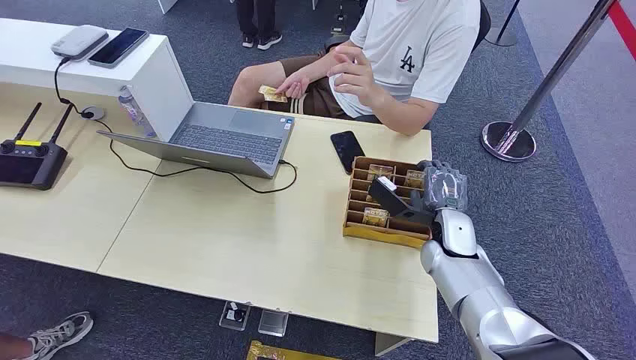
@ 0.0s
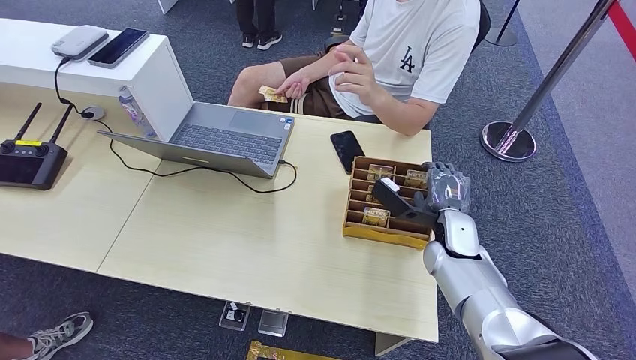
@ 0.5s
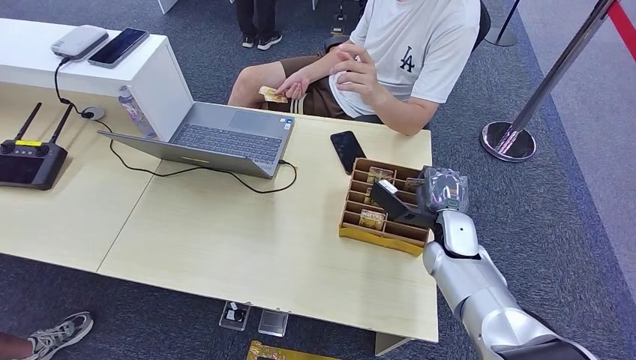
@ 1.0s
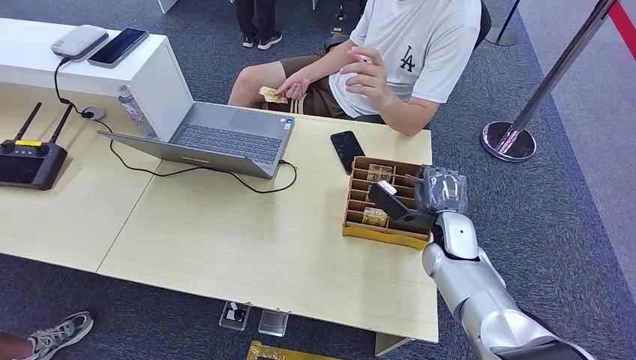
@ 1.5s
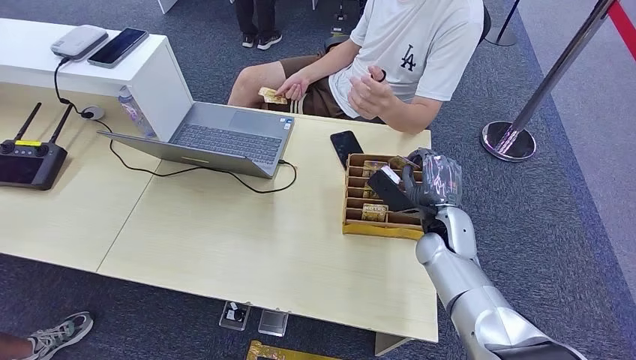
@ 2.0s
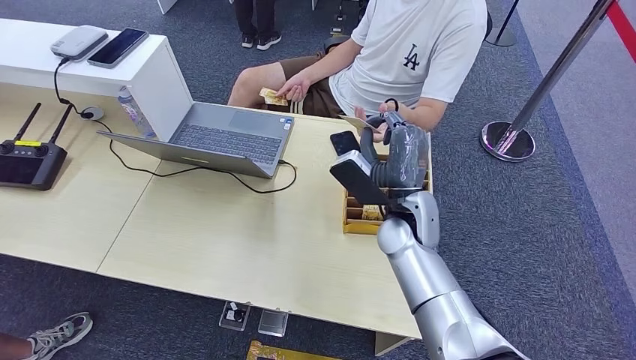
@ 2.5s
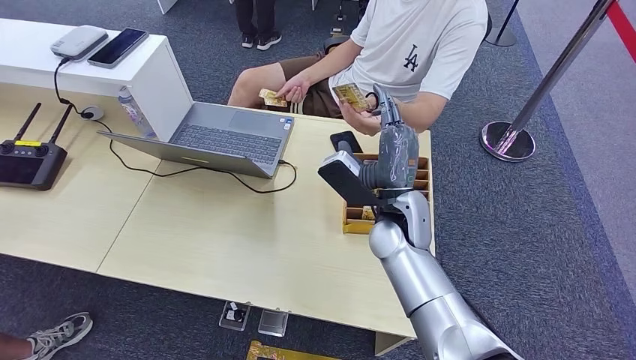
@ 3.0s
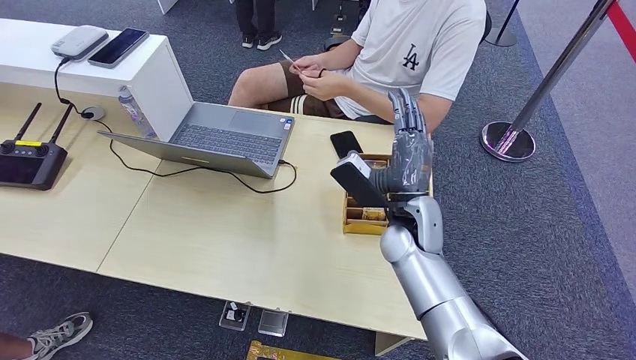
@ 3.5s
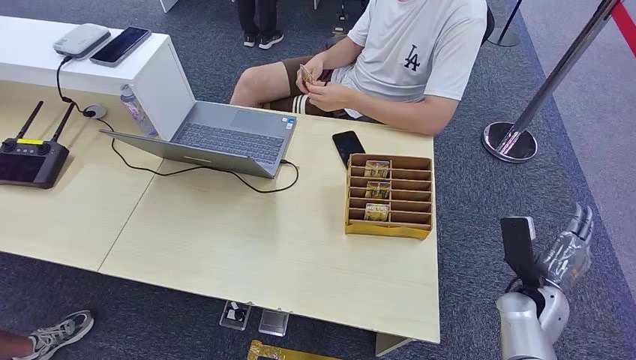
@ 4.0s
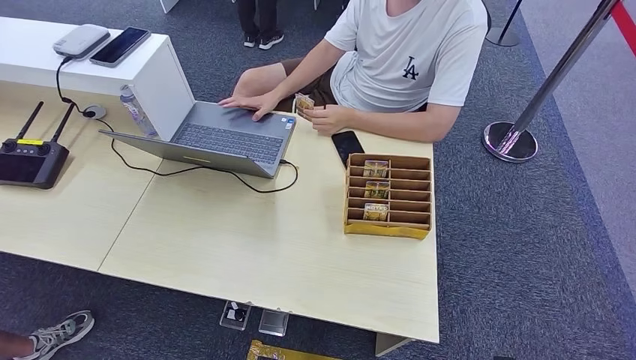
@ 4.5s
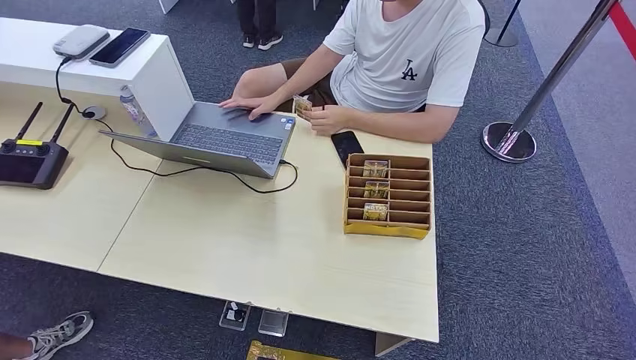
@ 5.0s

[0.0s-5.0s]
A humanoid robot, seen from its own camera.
Step, 0.0s to 2.5s: Pick up the room card from the card holder.
Step, 3.0s to 4.5s: Hand the room card to the target.
2.5s to 5.0s: The right hand goes about 50 cm backward, downward and to the right.
